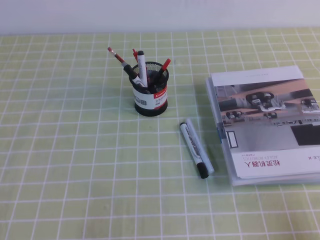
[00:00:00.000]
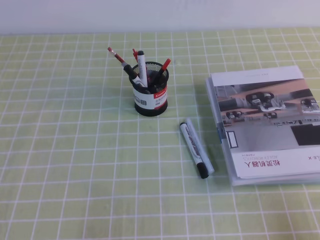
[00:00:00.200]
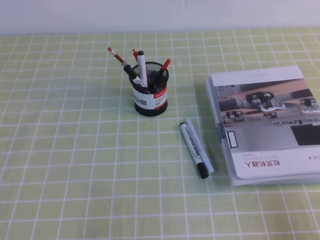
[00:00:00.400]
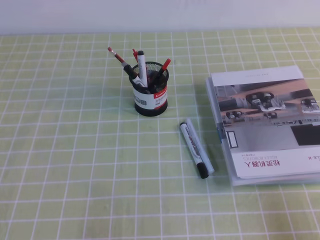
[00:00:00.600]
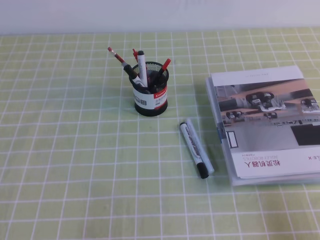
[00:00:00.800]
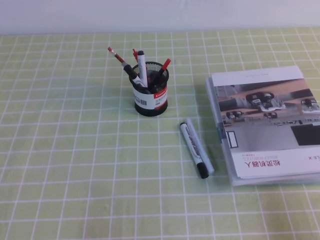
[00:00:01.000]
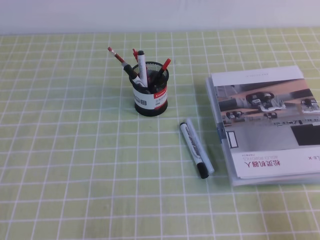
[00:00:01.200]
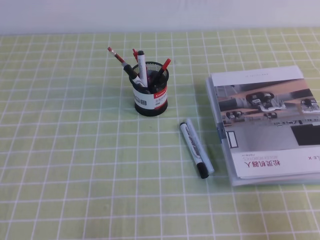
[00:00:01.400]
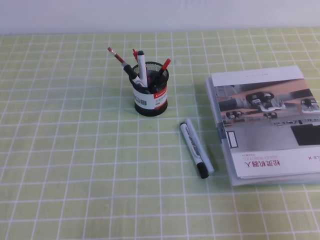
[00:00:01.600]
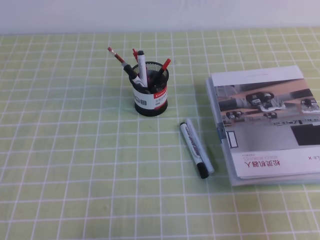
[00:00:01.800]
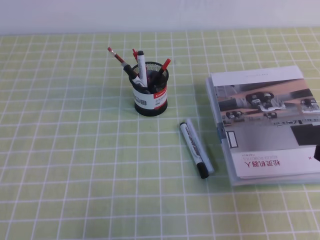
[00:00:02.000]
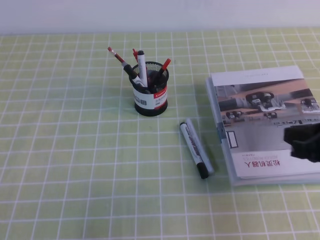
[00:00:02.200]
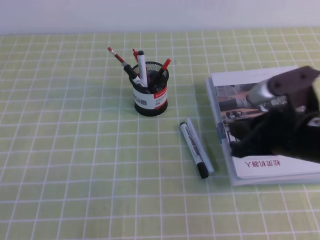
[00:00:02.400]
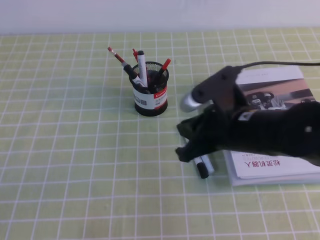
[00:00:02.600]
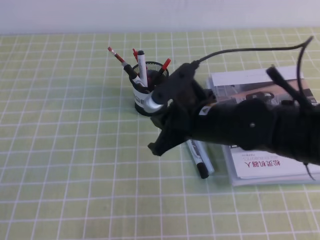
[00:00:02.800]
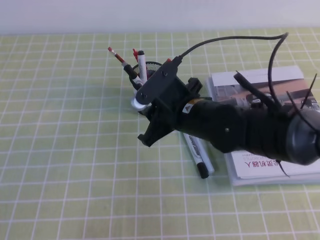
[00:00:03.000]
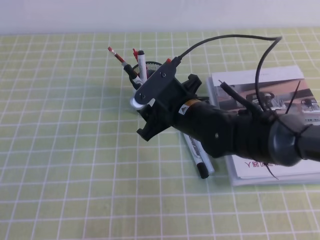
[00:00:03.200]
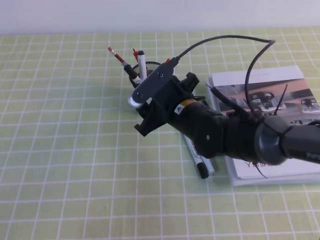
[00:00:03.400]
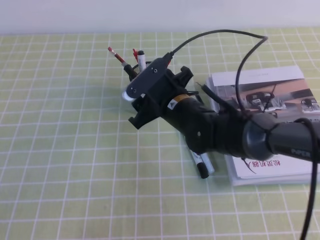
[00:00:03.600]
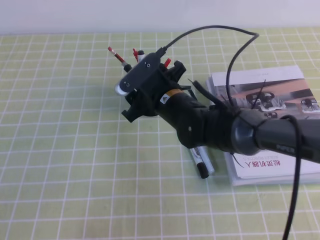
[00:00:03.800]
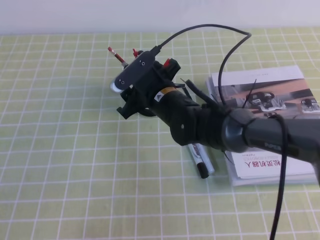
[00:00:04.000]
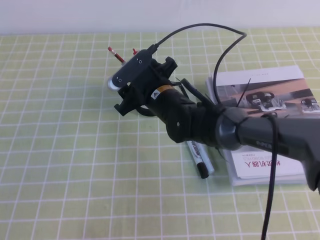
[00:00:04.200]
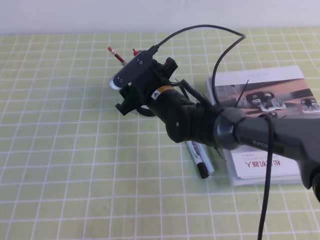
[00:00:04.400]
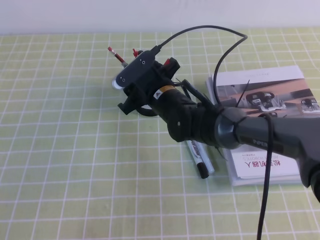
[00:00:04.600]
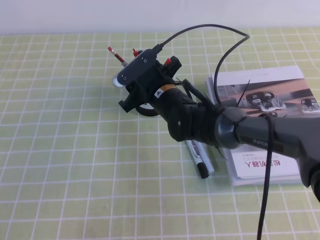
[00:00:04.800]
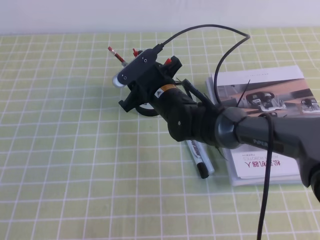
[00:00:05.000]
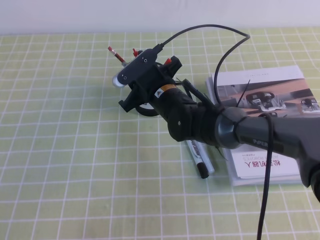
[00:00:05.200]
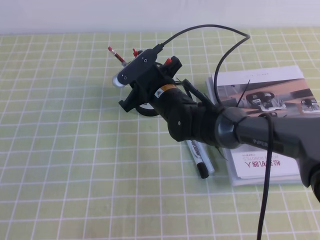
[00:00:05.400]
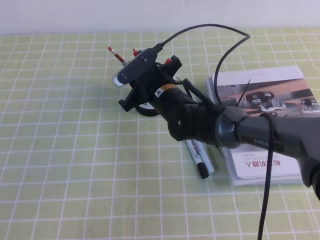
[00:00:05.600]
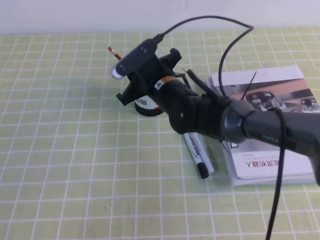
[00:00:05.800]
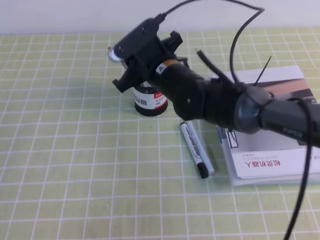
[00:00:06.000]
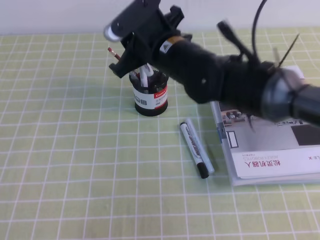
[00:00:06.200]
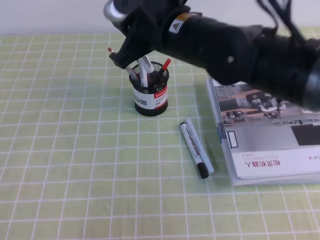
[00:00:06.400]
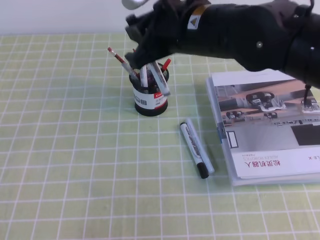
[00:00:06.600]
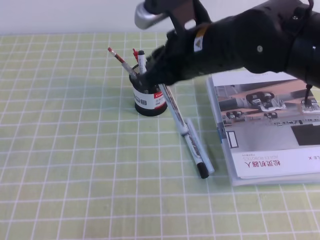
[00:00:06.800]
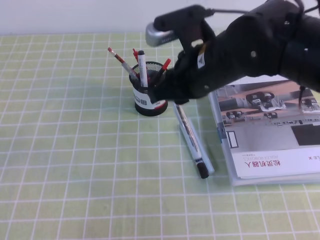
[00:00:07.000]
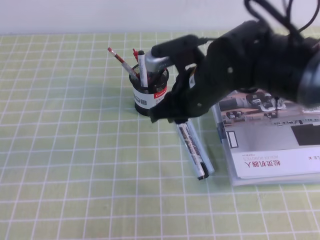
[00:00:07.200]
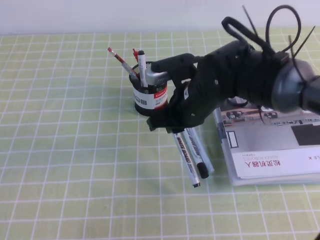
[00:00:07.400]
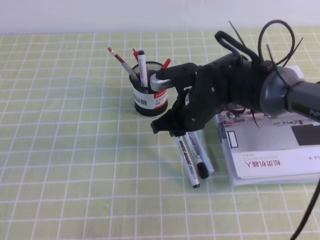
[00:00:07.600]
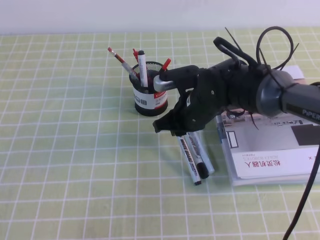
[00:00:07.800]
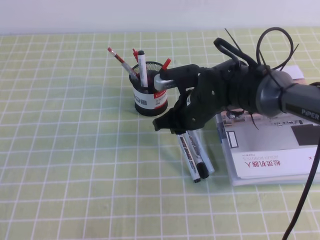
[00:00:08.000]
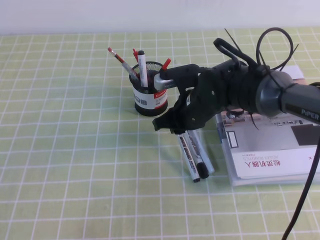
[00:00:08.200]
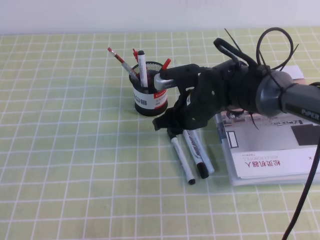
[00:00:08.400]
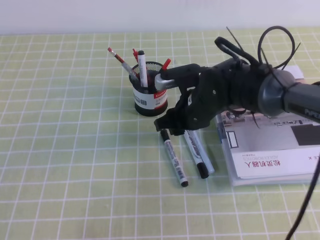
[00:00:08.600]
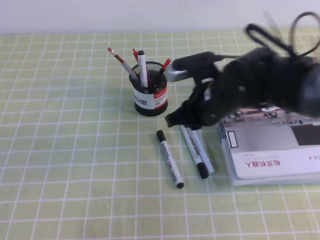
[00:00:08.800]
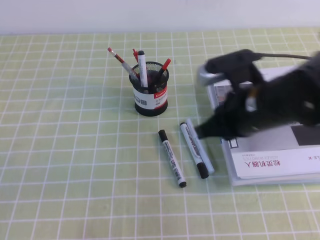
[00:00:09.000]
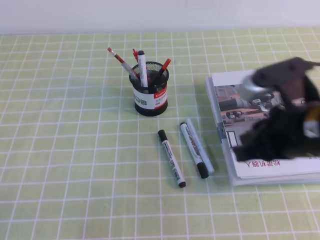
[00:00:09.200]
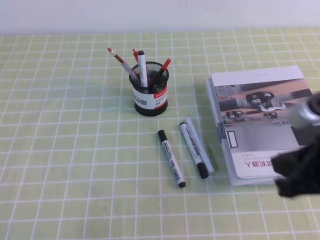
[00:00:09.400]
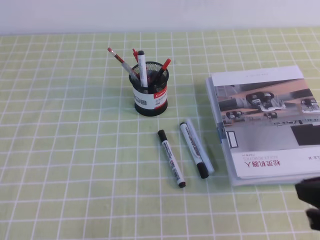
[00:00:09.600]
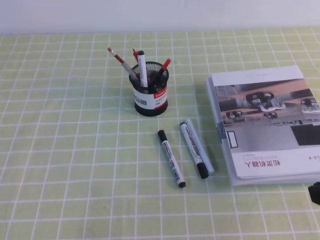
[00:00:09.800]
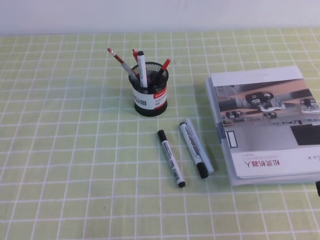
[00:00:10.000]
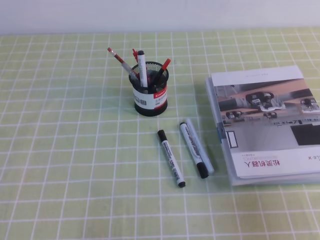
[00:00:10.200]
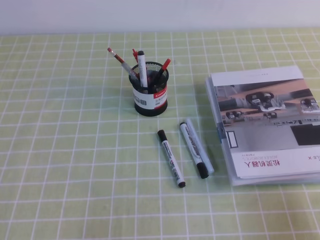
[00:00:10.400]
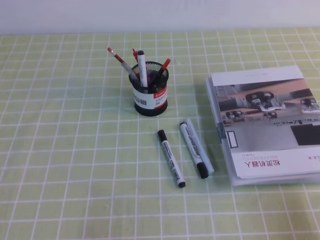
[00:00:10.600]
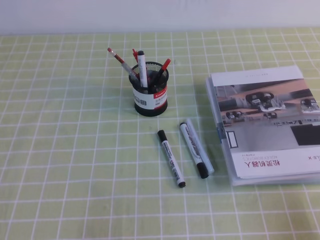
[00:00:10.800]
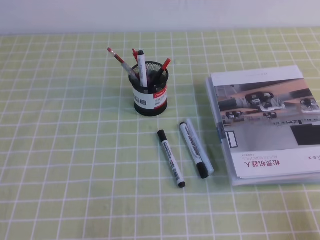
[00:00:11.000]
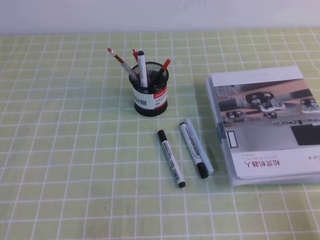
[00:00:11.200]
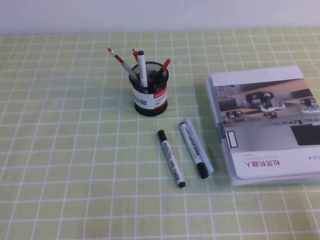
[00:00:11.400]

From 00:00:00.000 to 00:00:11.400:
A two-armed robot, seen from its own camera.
From 00:00:01.400 to 00:00:02.800: The right gripper is displaced to the left and forward by about 30 cm.
From 00:00:02.800 to 00:00:04.200: The right gripper goes roughly 15 cm forward and to the left, and opens.
From 00:00:04.200 to 00:00:05.600: The right gripper closes its fingers.
From 00:00:05.600 to 00:00:07.200: The right gripper travels upward, backward and to the right by roughly 15 cm.
From 00:00:07.200 to 00:00:08.600: The right gripper travels downward by about 10 cm.
From 00:00:08.600 to 00:00:10.000: The right gripper travels backward and to the right by some 30 cm, and closes.
From 00:00:10.000 to 00:00:11.400: The right gripper goes roughly 15 cm downward, to the right and backward.

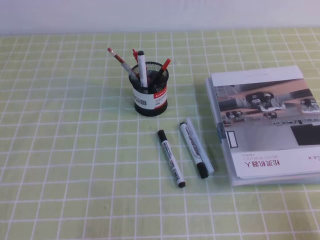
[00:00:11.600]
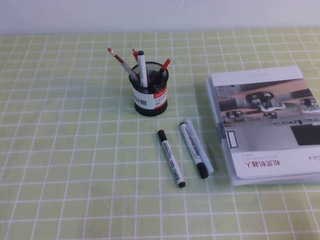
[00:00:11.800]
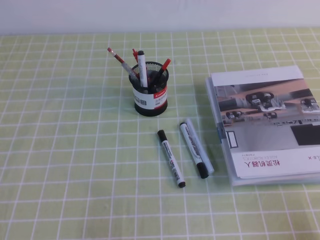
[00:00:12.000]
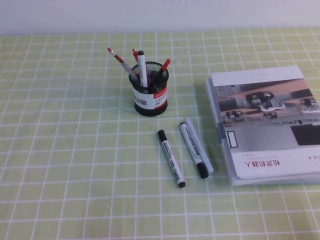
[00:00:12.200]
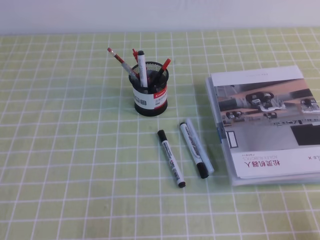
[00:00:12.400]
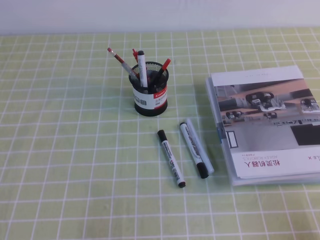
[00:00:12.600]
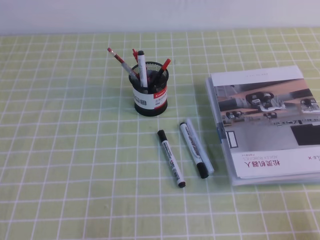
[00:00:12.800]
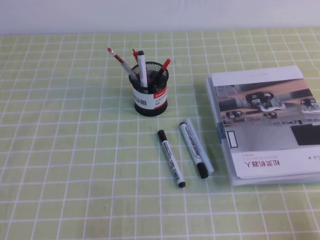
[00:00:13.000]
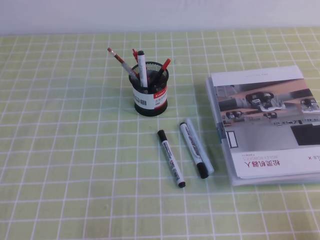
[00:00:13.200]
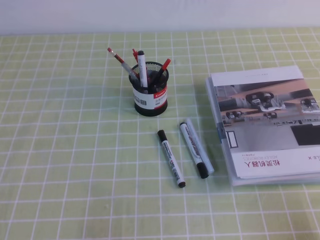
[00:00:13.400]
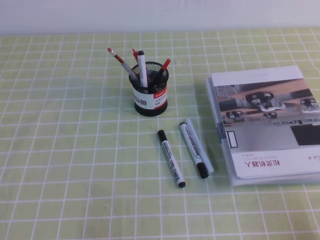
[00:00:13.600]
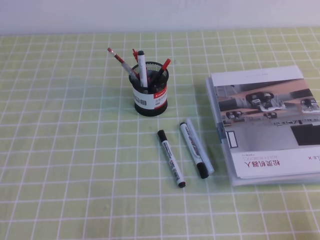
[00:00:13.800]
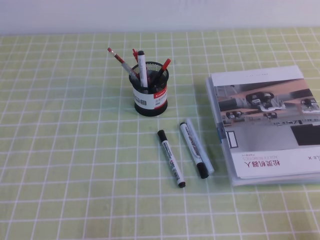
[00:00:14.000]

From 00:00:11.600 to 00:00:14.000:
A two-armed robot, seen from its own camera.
From 00:00:12.800 to 00:00:14.000: Both grippers stay about where they are.
